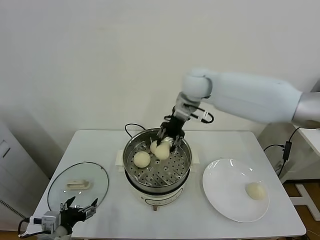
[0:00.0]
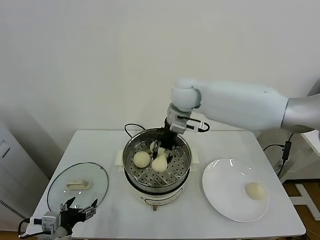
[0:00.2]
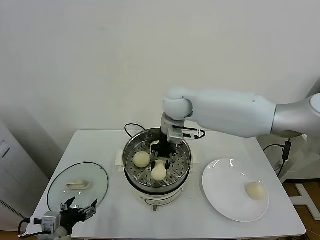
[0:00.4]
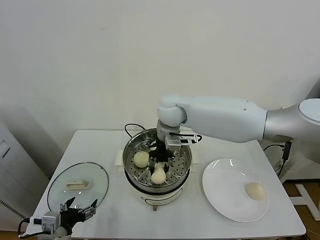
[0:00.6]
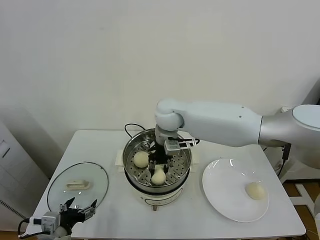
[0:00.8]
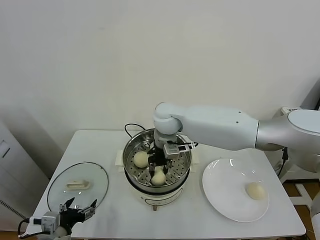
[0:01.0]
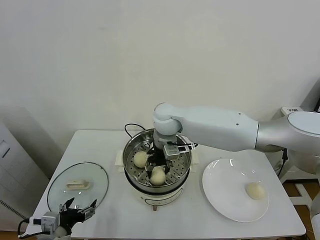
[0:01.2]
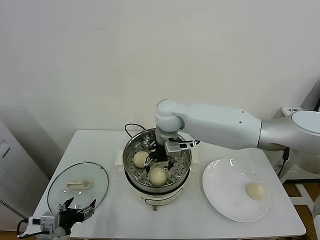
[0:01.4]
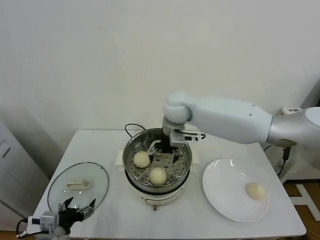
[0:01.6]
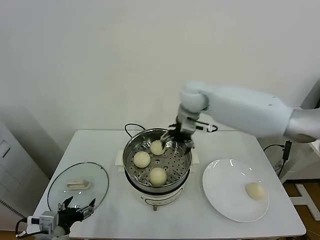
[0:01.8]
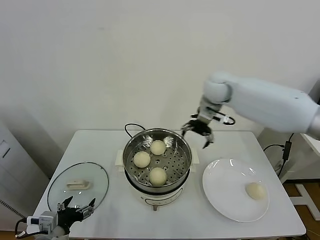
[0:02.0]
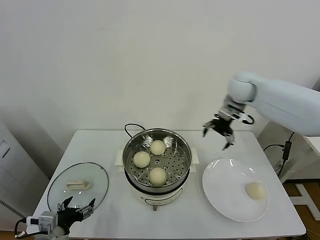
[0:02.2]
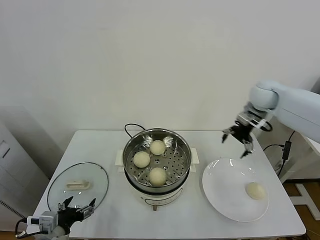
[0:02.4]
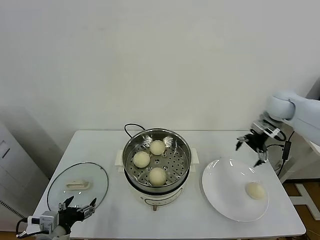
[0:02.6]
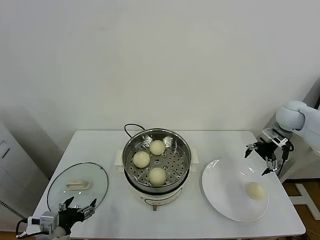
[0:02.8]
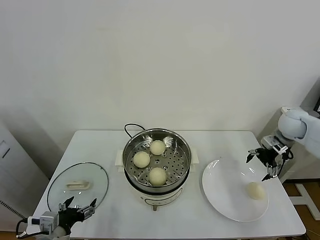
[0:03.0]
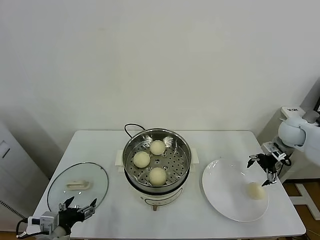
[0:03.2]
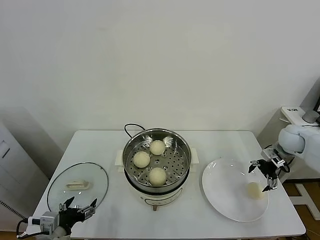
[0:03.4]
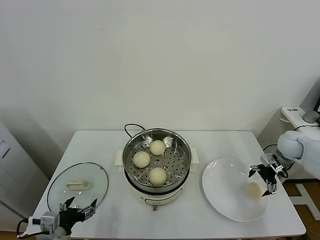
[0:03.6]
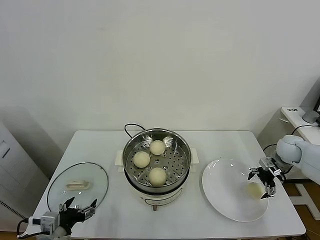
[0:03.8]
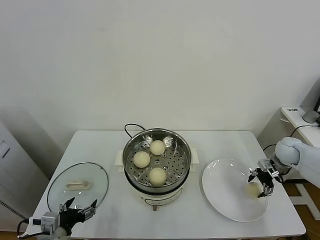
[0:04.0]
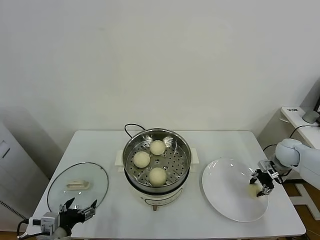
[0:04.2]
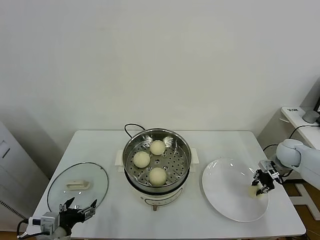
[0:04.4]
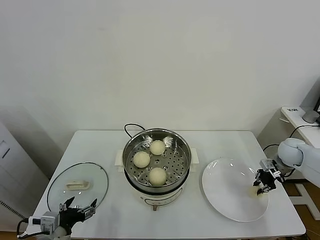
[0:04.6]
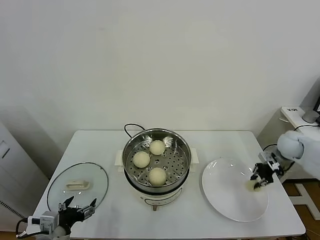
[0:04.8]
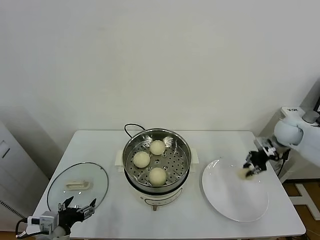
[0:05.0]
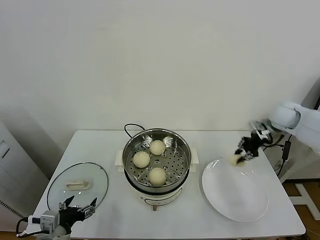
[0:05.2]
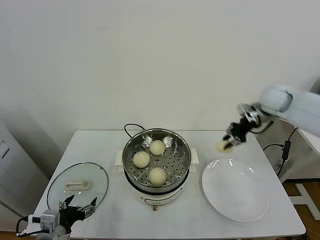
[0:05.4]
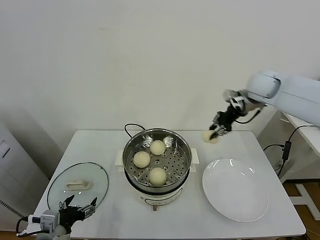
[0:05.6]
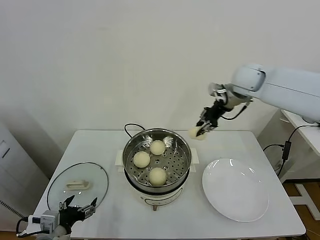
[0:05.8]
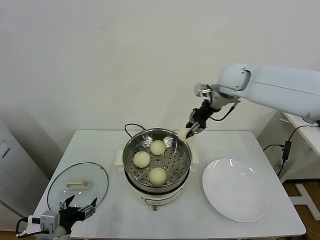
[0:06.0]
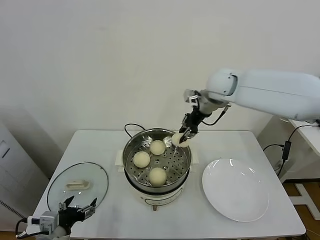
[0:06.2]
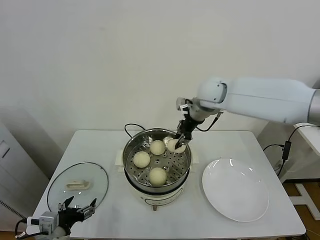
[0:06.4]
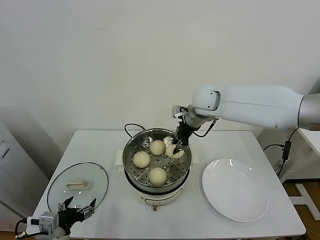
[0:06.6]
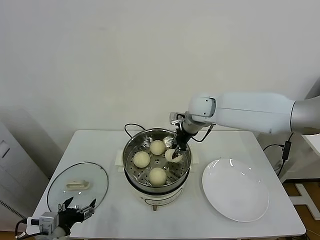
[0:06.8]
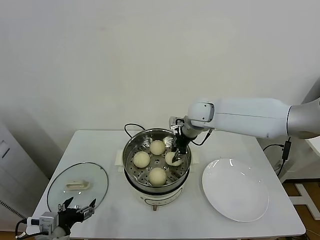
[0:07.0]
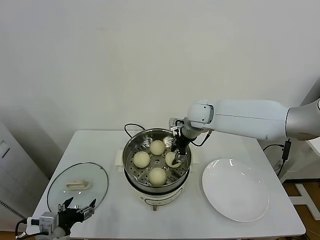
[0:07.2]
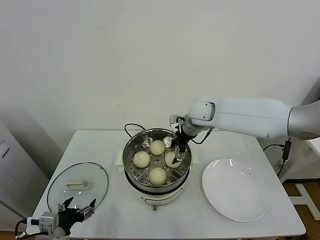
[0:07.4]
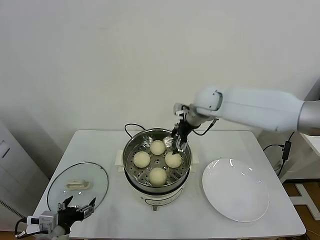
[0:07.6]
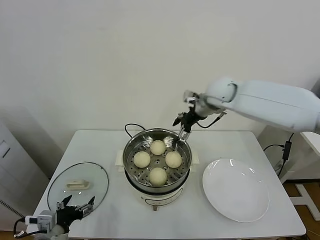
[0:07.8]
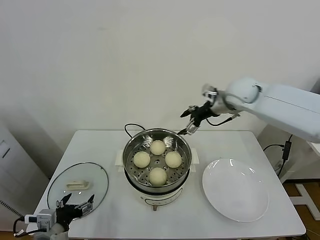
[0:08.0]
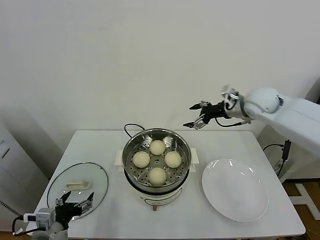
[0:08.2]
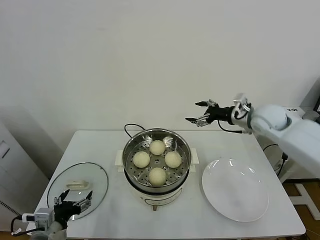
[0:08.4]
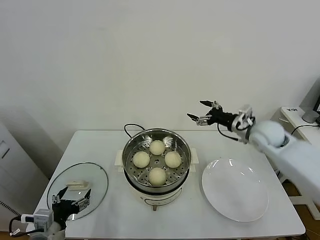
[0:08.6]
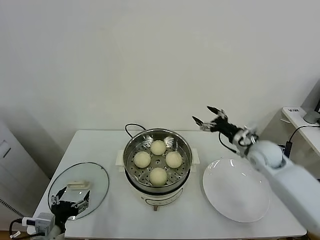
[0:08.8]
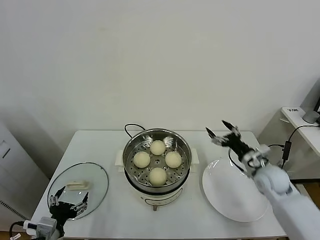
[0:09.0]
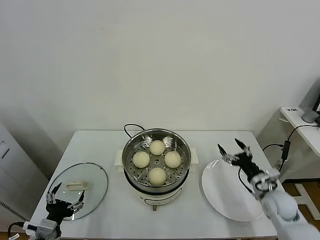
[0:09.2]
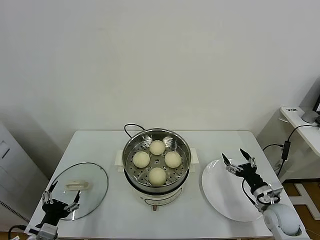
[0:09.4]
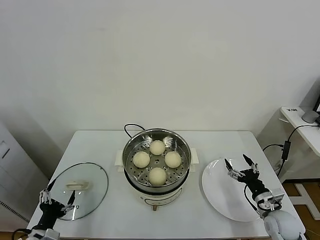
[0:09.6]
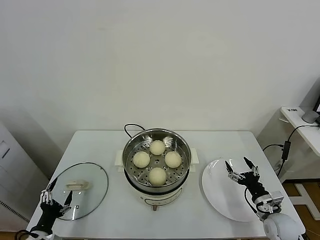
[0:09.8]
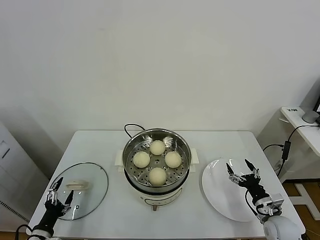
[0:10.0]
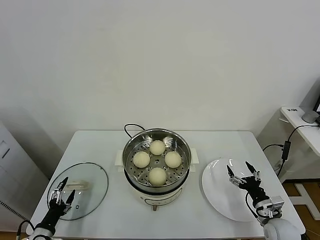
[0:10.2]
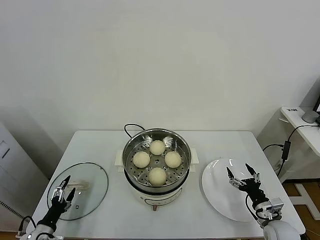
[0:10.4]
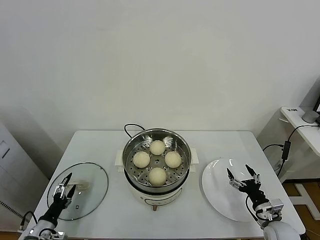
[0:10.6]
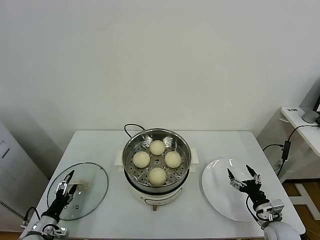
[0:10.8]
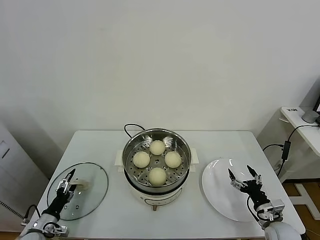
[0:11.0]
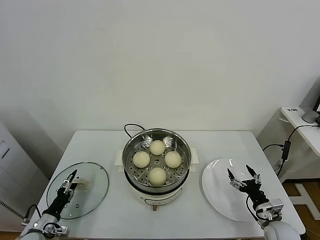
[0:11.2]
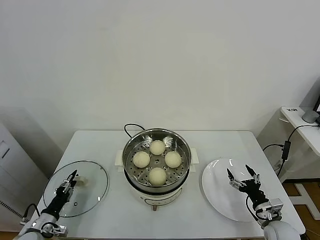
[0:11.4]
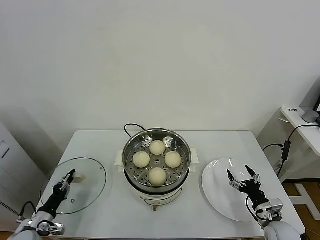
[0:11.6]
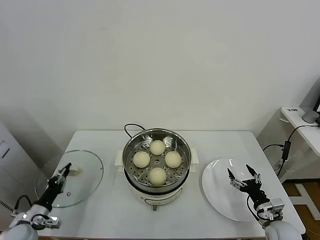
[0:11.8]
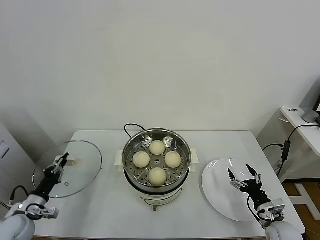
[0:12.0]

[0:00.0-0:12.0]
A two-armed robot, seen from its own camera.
Task of the whole recording: take steamed baozi put them in steamer.
Step, 0:01.6 to 0:04.2: Grasp the baozi in the plate with right gripper.
Step, 0:04.4 to 0:07.4: Place the baozi on the steamer with right gripper.
Step, 0:07.6 to 0:11.8: Grasp the pot lid with left gripper.
0:00.0 to 0:01.6: The right gripper goes some 5 cm downward, and opens up.
0:01.6 to 0:03.0: The right gripper is displaced to the right by approximately 40 cm.
0:03.0 to 0:04.4: The right gripper shifts roughly 10 cm downward, and closes up.
0:04.4 to 0:06.0: The right gripper goes approximately 35 cm to the left and upward.
0:06.0 to 0:07.6: The right gripper heads downward and to the left, covering about 10 cm, and opens up.
0:07.6 to 0:09.0: The right gripper shifts about 35 cm to the right, downward and backward.
0:09.0 to 0:10.4: The left gripper is displaced downward and to the left by roughly 15 cm; the right gripper heads backward and downward, covering some 20 cm.
0:10.4 to 0:12.0: The left gripper goes some 10 cm upward and forward, and closes.

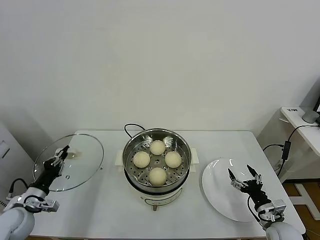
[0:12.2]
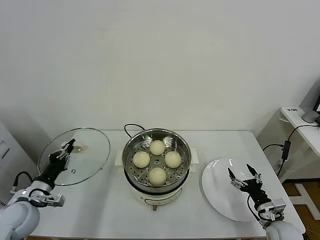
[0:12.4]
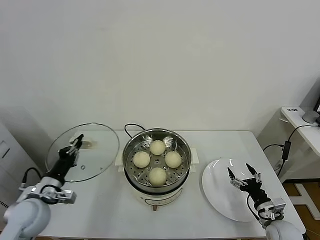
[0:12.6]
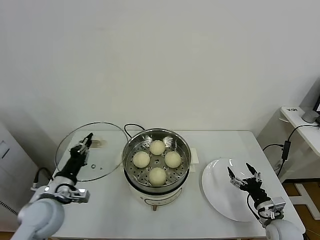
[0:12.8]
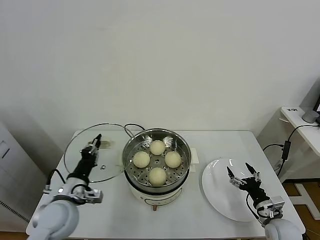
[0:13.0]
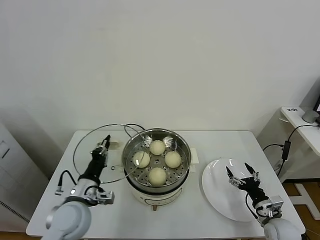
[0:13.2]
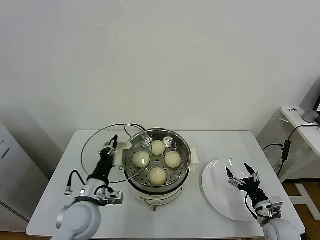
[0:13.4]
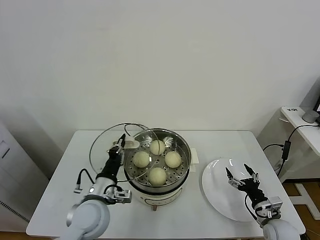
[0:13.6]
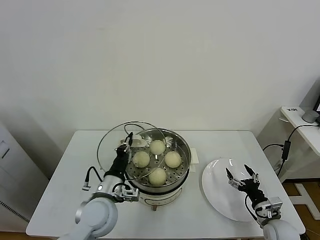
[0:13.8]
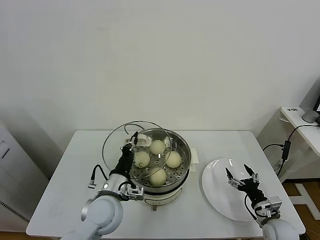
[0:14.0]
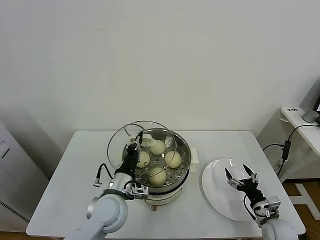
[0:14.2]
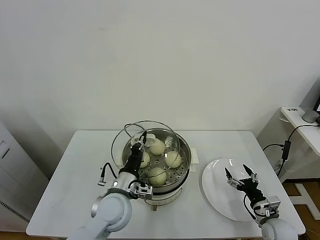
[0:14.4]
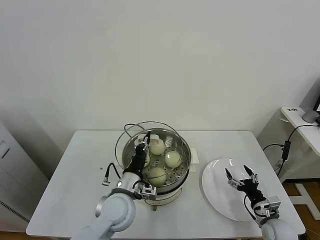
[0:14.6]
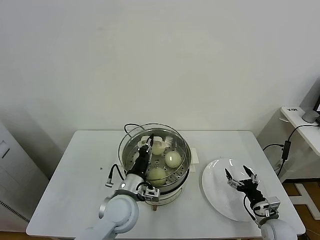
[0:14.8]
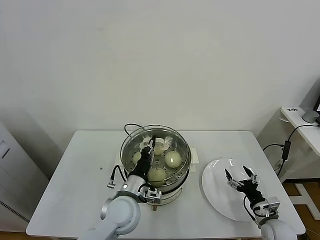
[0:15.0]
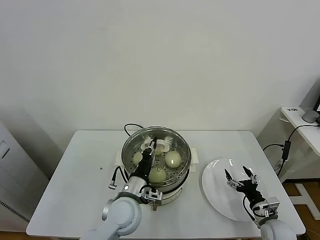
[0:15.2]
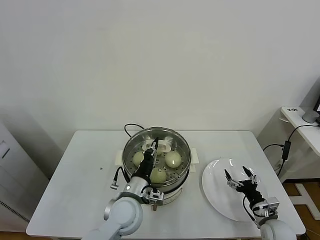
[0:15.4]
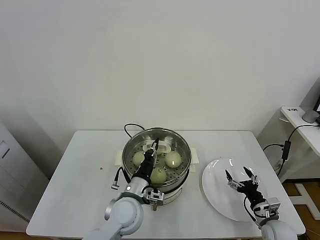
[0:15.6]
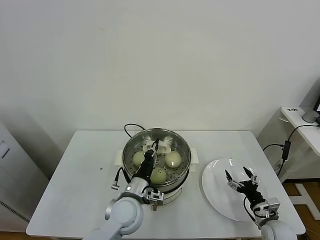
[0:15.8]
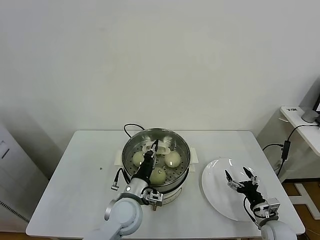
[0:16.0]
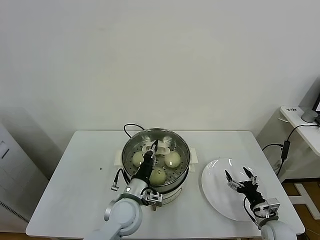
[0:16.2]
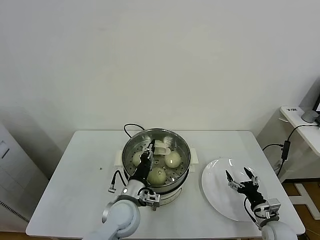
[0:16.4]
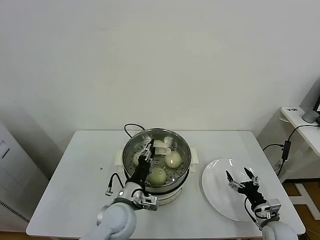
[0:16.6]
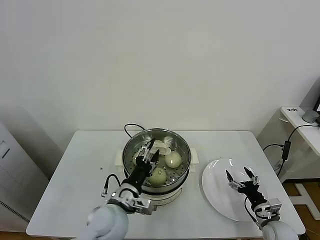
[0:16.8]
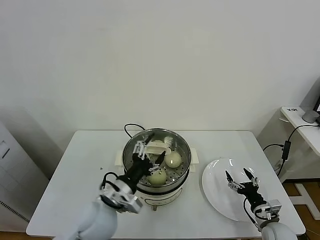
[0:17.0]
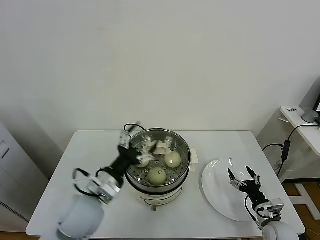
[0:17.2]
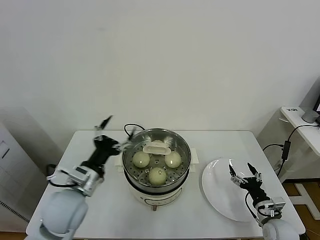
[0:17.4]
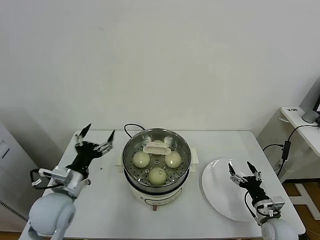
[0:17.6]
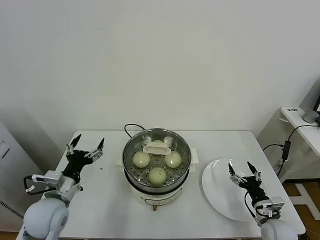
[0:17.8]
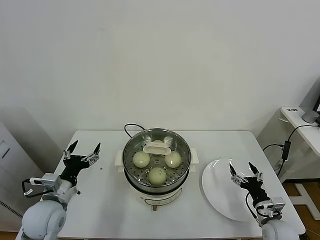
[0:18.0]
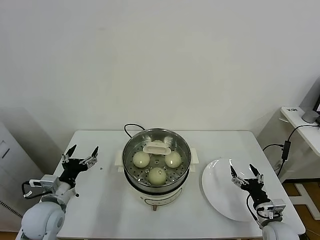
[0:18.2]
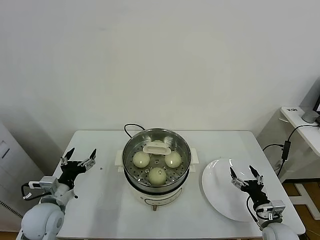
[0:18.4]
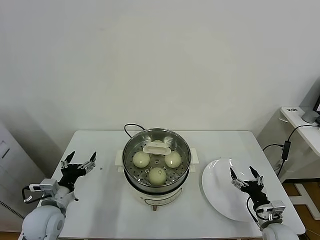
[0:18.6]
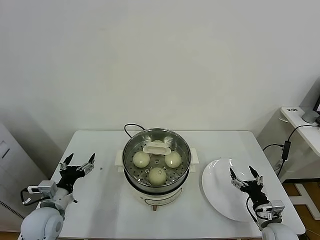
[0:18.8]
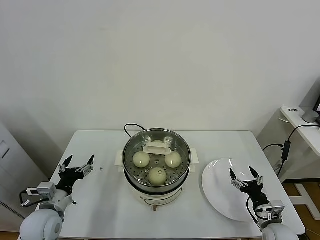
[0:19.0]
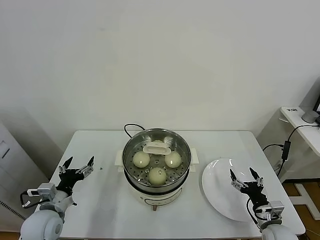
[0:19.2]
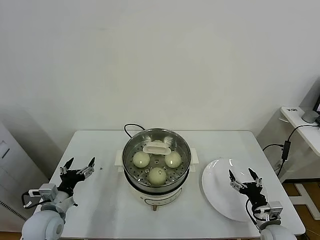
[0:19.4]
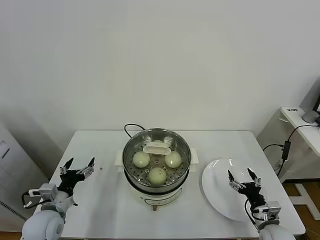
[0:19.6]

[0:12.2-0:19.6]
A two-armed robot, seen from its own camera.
Task of the whole recording: take steamed baozi put them in steamer.
Step, 0:12.2 to 0:17.0: Place the pot lid on the steamer with left gripper.
0:12.2 to 0:13.6: The left gripper shifts roughly 25 cm to the right.
0:13.6 to 0:15.2: The left gripper heads to the right, covering approximately 10 cm.
0:15.2 to 0:16.6: The grippers move only a little.
0:16.6 to 0:18.2: The left gripper goes approximately 20 cm to the left, and opens up.
0:18.2 to 0:19.6: The grippers move only a little.

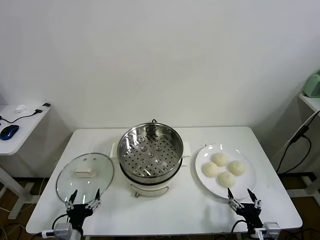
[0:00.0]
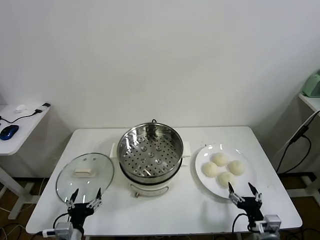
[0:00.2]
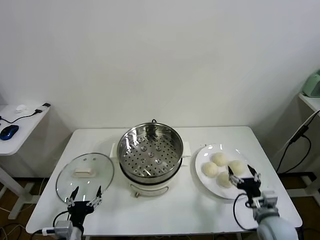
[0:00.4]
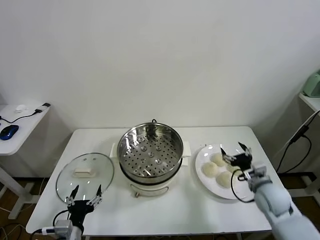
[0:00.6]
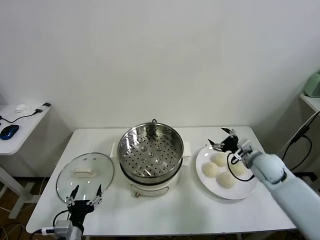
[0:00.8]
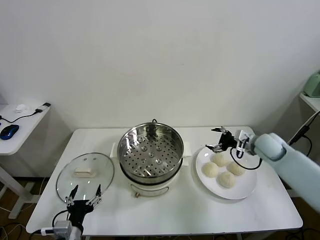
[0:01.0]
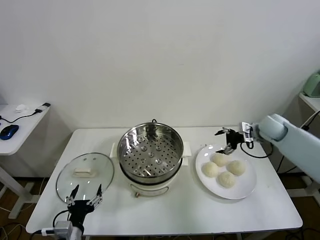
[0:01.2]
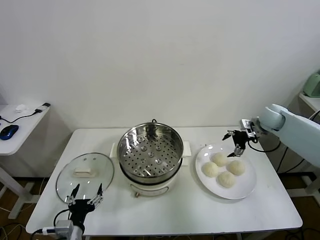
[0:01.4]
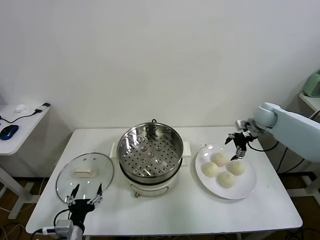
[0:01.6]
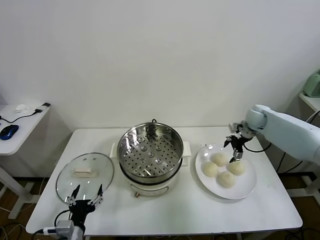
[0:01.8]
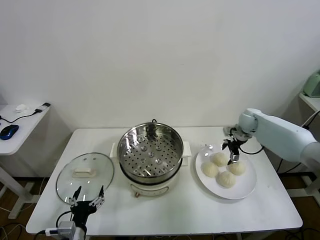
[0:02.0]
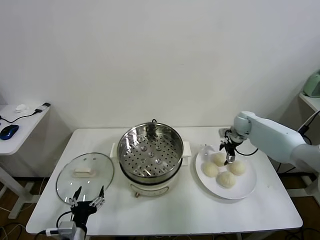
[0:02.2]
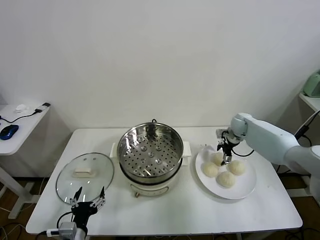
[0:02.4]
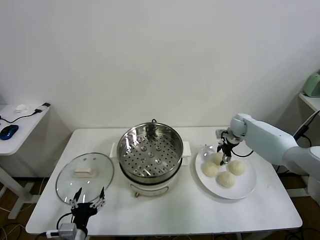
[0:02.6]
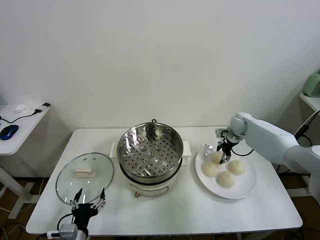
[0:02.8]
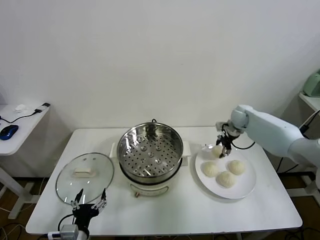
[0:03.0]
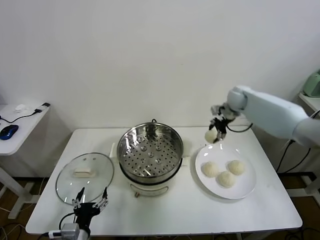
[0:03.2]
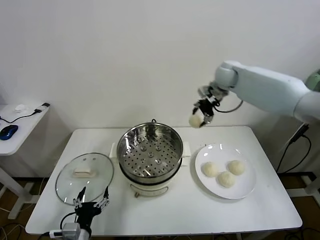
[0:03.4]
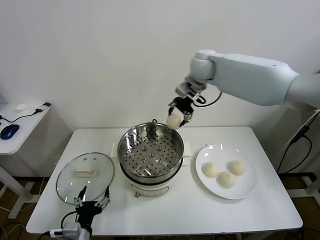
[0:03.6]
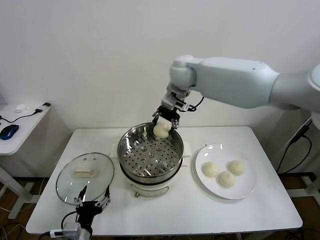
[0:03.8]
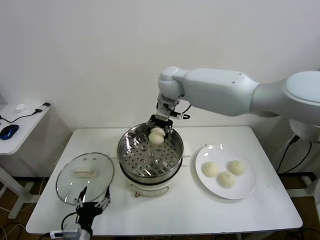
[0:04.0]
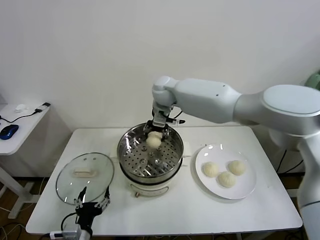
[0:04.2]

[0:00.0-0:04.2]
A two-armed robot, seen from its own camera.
Task of the whole recording: take steamed baozi put them in steamer.
Step, 0:00.0 to 0:02.8: Grasp the baozi in the plate with right gripper.
0:01.4 to 0:02.8: The right gripper shifts roughly 10 cm downward, to the left and forward, and closes.
0:02.8 to 0:04.2: The right gripper heads to the left and upward, covering some 40 cm.
